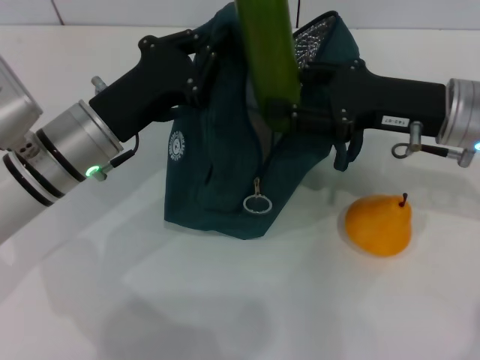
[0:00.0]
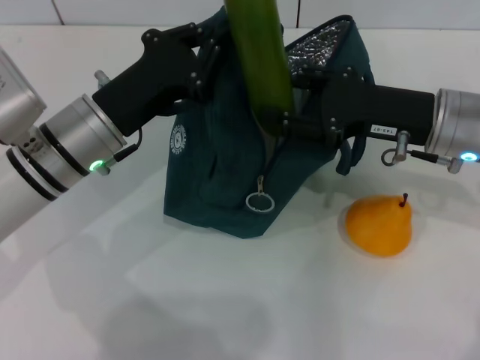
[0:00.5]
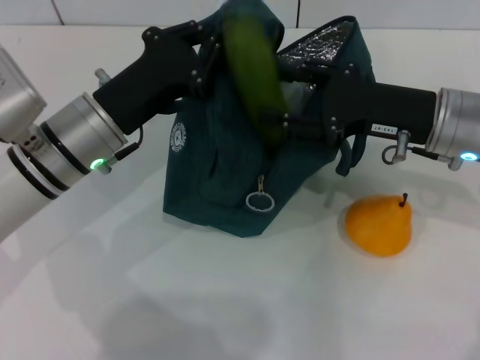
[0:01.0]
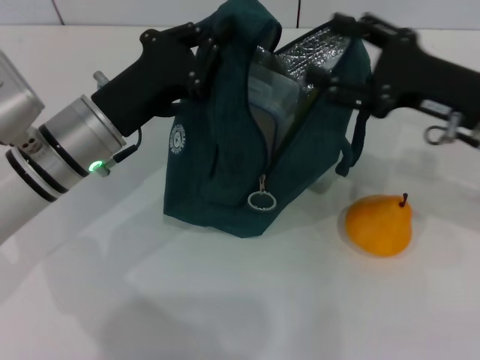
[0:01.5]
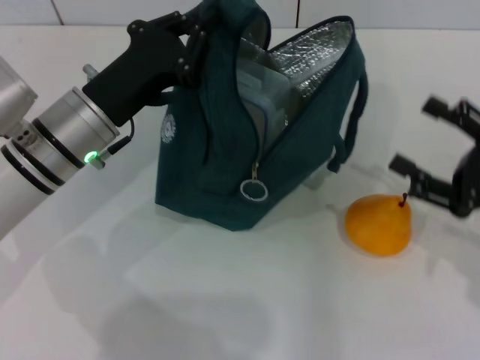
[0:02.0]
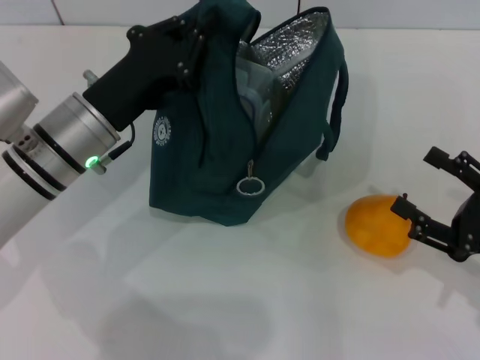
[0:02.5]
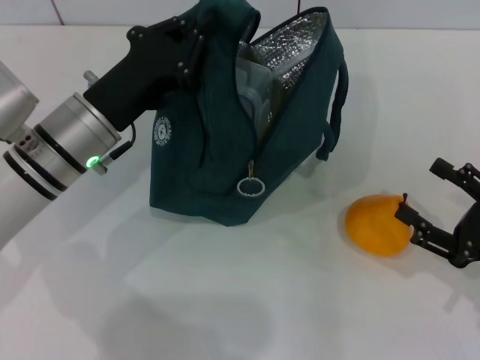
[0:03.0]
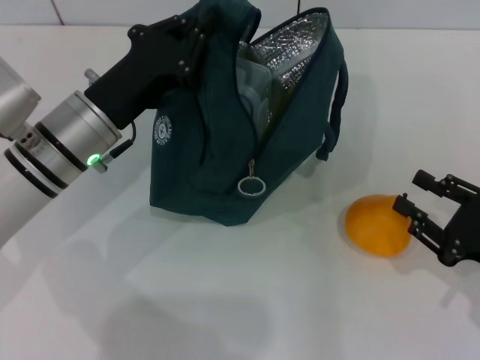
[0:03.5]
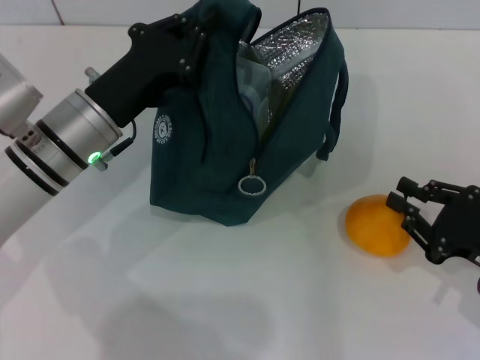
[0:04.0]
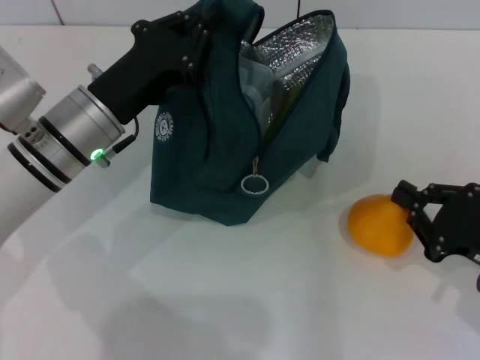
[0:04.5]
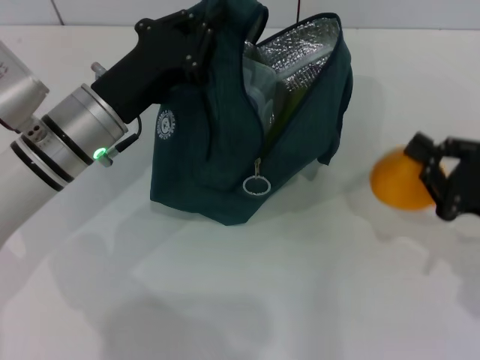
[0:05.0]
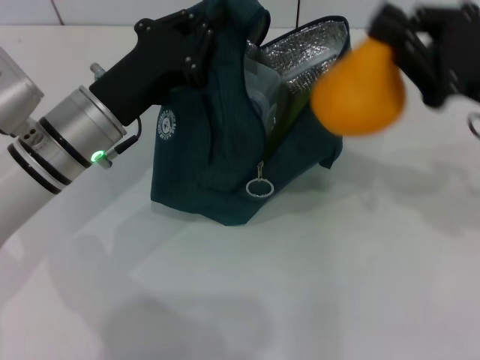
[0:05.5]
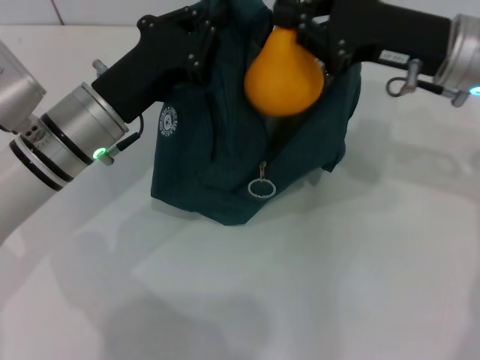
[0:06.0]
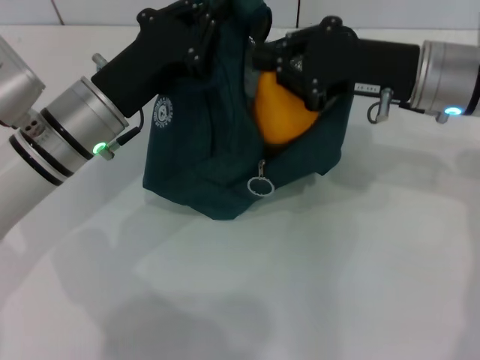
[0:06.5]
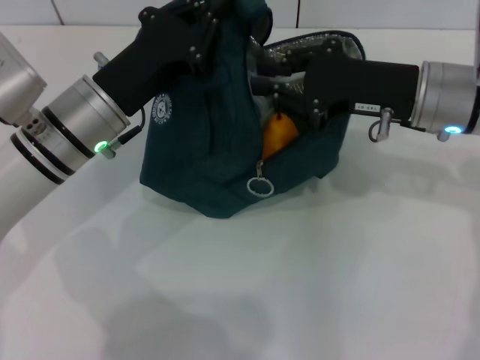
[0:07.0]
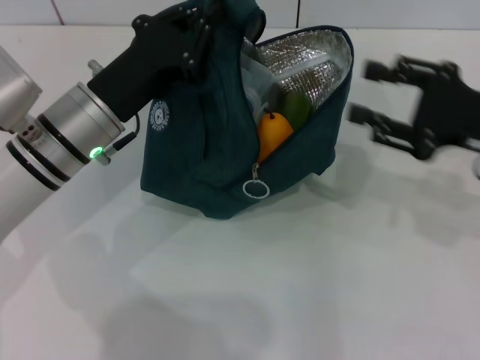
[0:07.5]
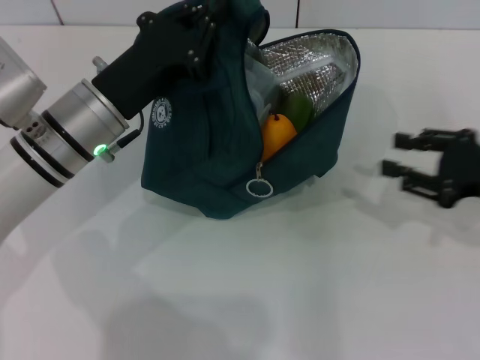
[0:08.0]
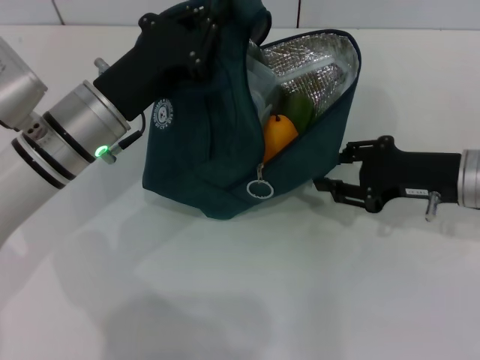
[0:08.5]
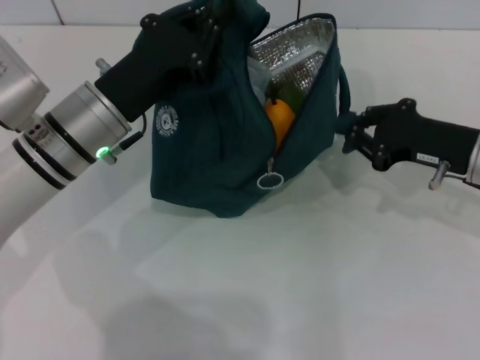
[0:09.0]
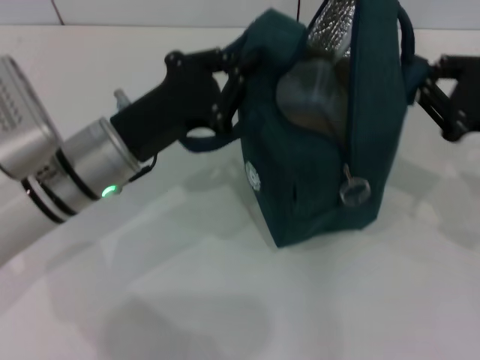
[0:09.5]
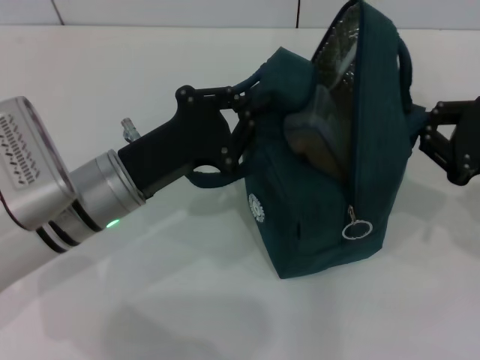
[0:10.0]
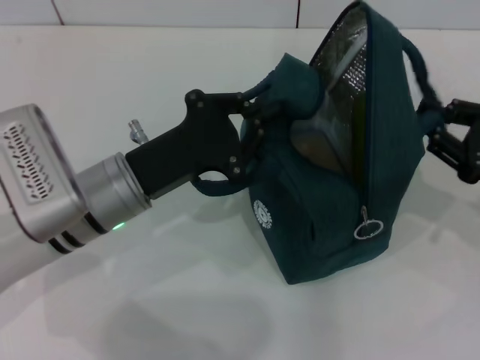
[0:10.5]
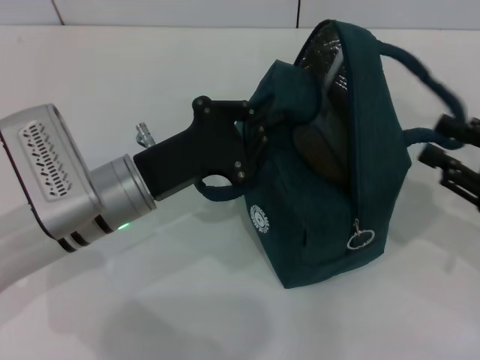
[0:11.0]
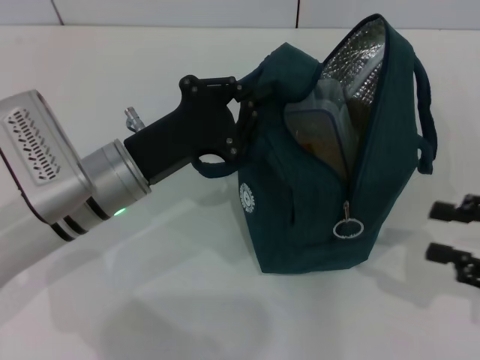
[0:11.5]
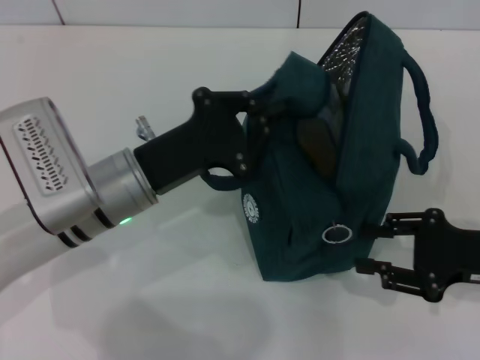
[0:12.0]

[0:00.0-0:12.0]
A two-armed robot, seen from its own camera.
Step, 0:01.5 to 0:04.0: Grab the pear with your right hand.
Step, 0:07.5 to 0:11.0: Hold the lunch bag with your right hand.
0:00.0 to 0:02.0: The right gripper is displaced backward, to the right and downward by some 15 cm.
0:02.0 to 0:04.0: The right gripper is displaced downward by some 5 cm, and closes up.
0:04.0 to 0:06.0: The right gripper is displaced forward, upward and to the left by some 25 cm.
0:06.0 to 0:08.0: The right gripper shifts approximately 15 cm to the right, downward and backward, and opens up.
0:08.0 to 0:10.0: The left gripper ends up some 5 cm from where it was, while the right gripper closes.
0:10.0 to 0:12.0: The right gripper ends up about 5 cm from where it was, and opens its fingers.

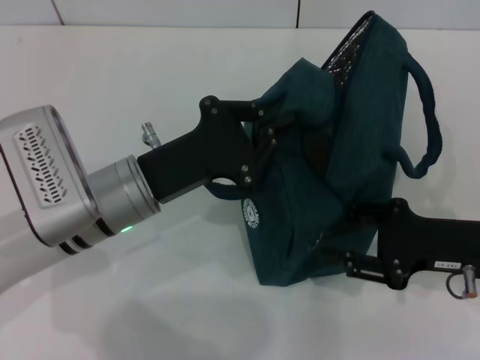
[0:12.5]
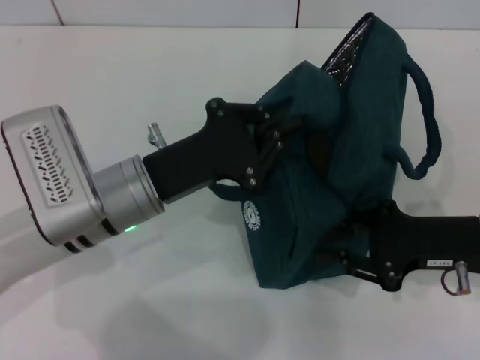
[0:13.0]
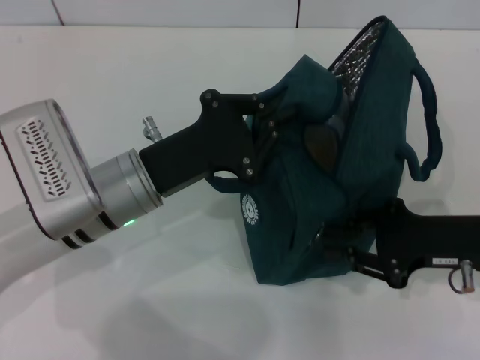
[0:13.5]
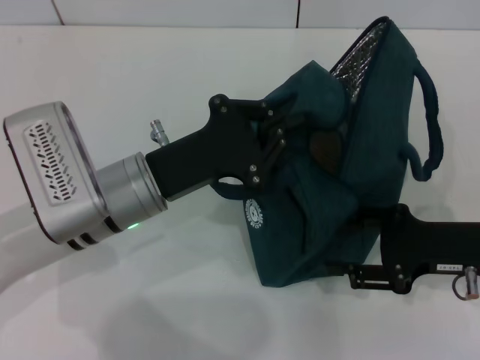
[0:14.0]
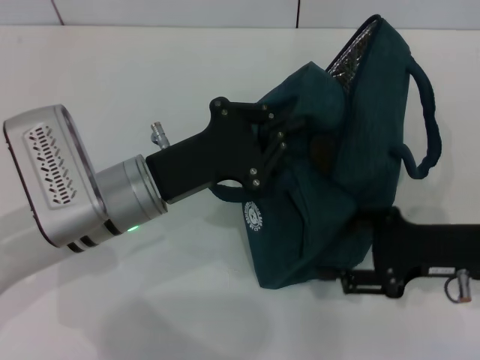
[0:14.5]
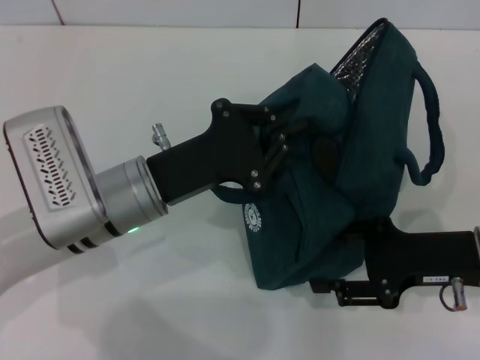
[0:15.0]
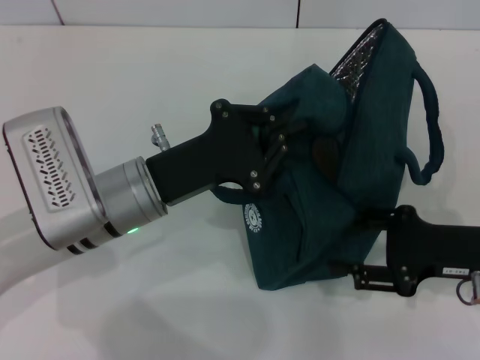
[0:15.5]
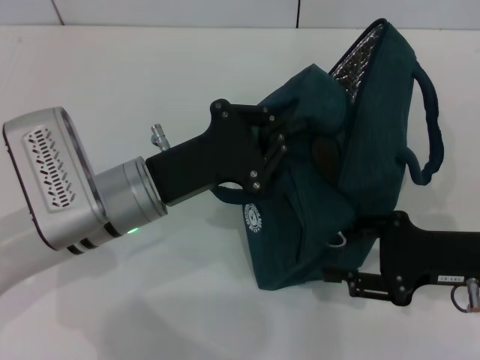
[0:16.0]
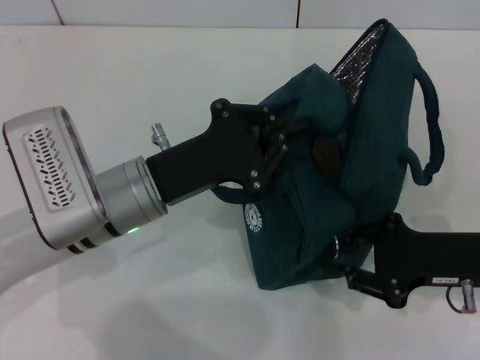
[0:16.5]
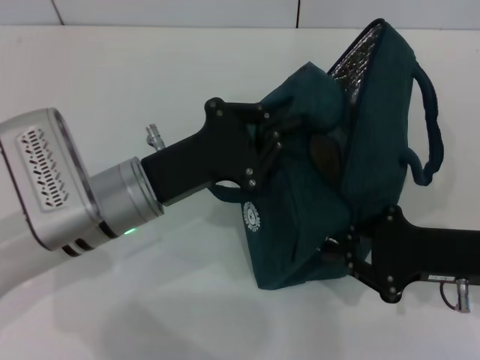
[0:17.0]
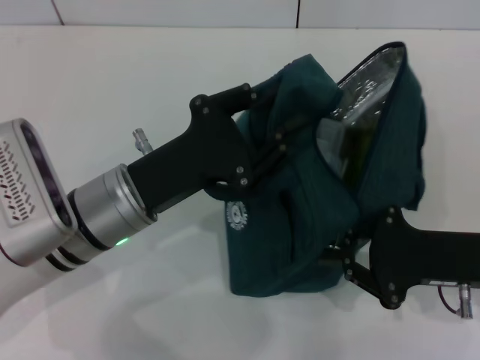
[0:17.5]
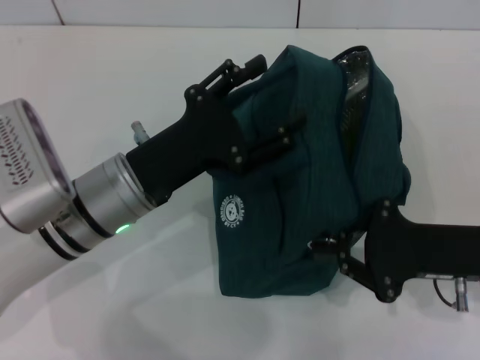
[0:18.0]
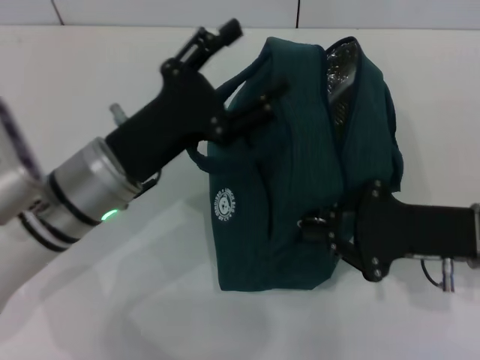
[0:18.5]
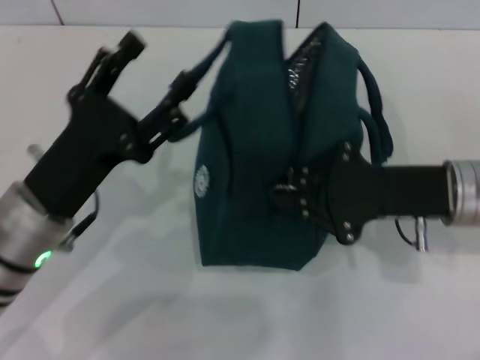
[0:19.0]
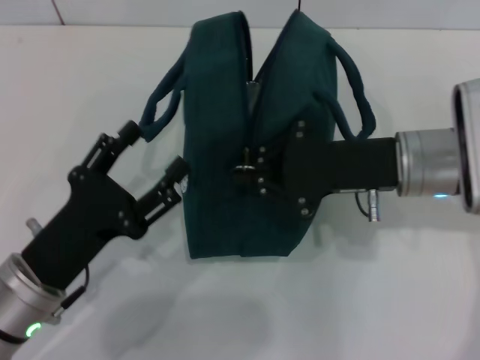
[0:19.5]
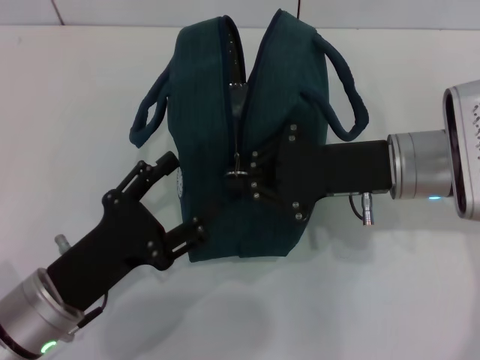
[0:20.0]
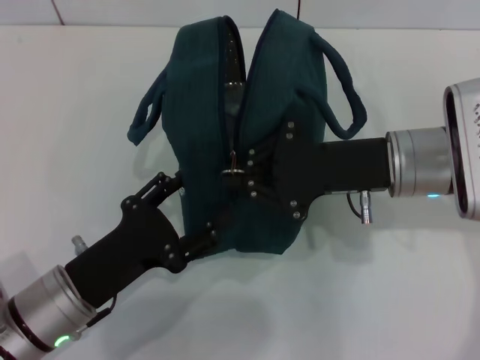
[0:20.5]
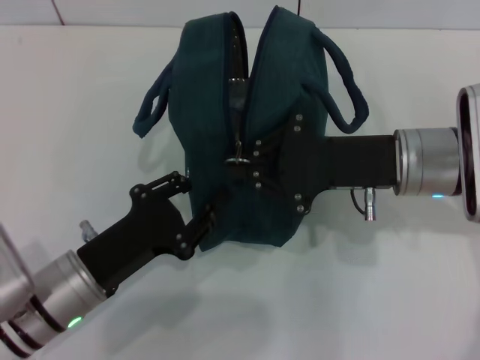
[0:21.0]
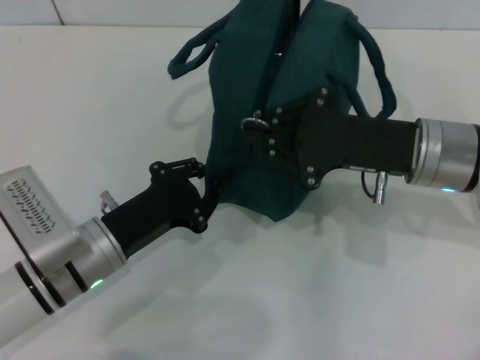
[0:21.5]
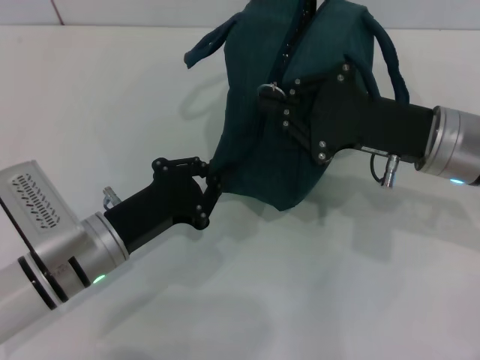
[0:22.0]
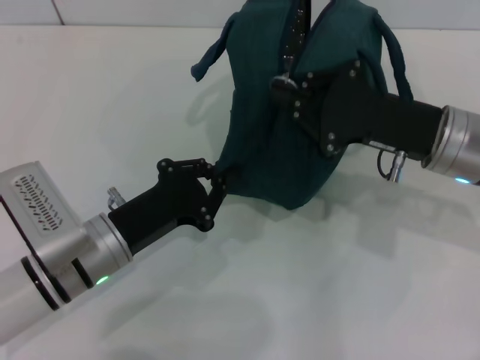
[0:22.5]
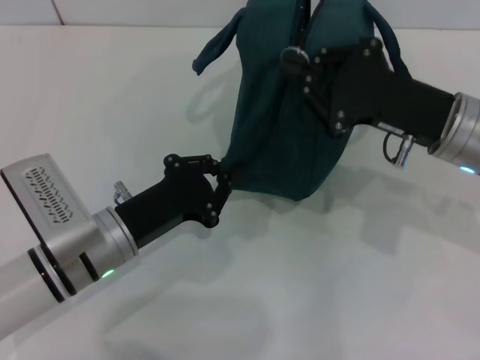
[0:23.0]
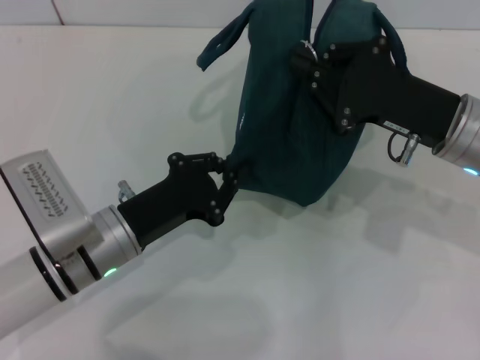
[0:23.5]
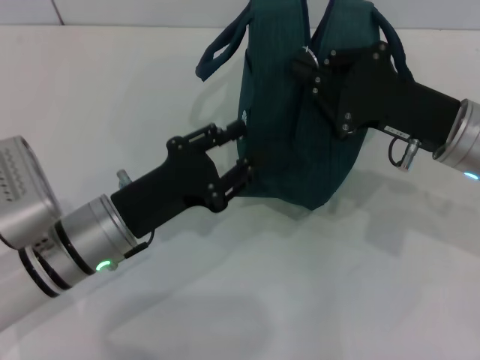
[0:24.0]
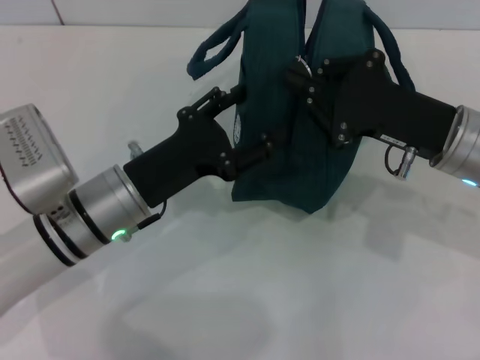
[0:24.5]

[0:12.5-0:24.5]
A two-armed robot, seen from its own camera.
Step, 0:12.5 to 0:17.5: Hold the lunch bag with your left hand.
0:12.5 to 0:16.5: There are only small adjustments of the grippers.
0:16.5 to 0:18.5: The left gripper opens up; the right gripper closes up.
0:18.5 to 0:20.5: The right gripper heads to the left and forward, covering about 10 cm, while the left gripper is displaced backward and downward by about 10 cm.
0:20.5 to 0:22.5: The left gripper goes some 5 cm forward, and closes up.
0:22.5 to 0:24.5: The left gripper shifts by roughly 5 cm, and opens up.

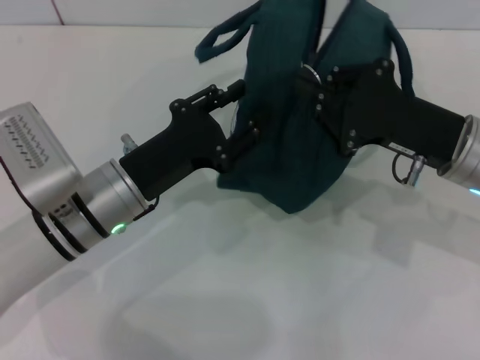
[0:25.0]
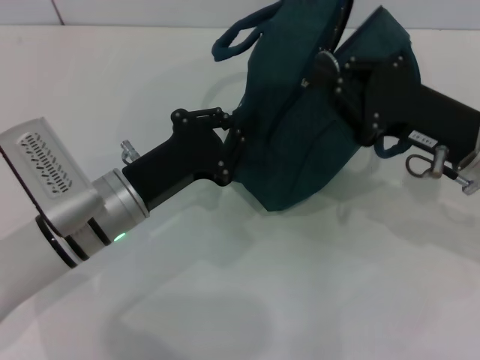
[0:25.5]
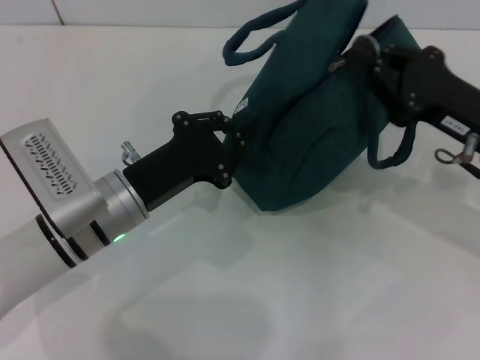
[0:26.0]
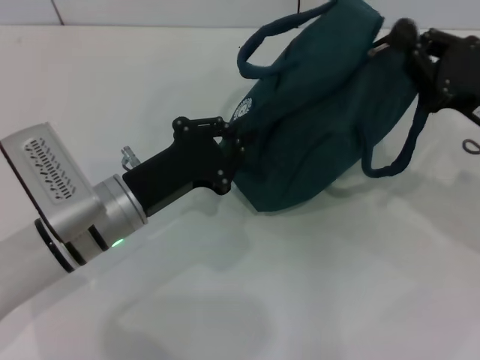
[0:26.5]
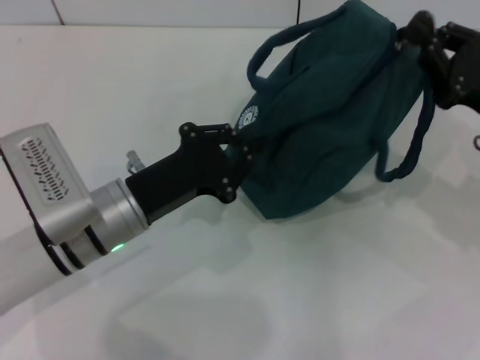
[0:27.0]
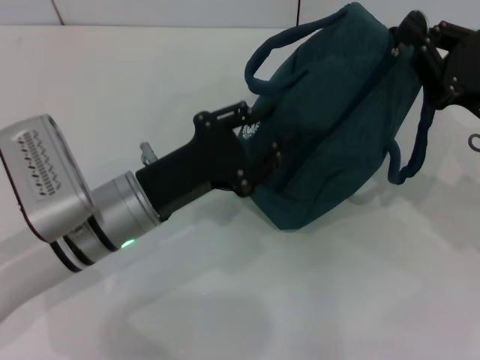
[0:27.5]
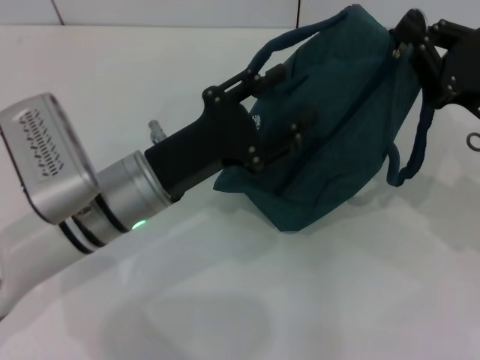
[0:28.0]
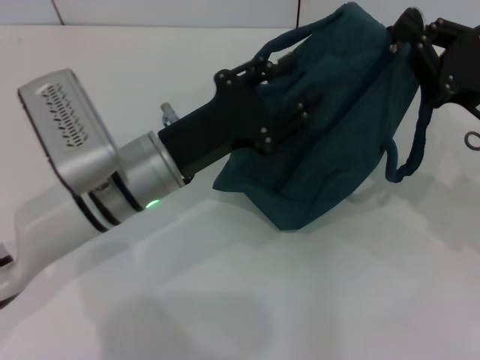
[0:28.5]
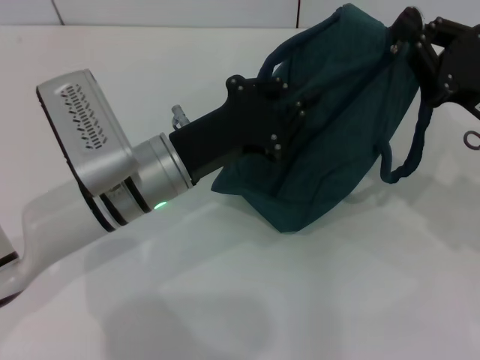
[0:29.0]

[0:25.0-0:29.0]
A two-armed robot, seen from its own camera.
0:25.0 to 0:27.0: The left gripper closes up. Meanwhile the right gripper is displaced to the right by some 5 cm.
0:27.0 to 0:29.0: The left gripper shifts by about 5 cm.
